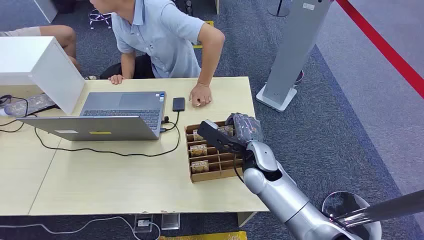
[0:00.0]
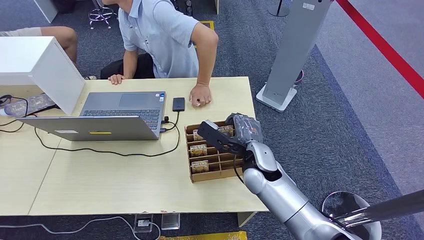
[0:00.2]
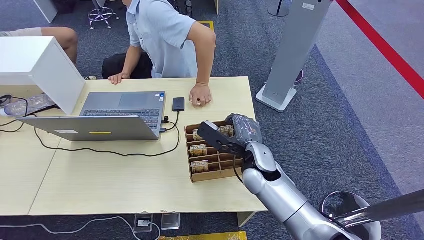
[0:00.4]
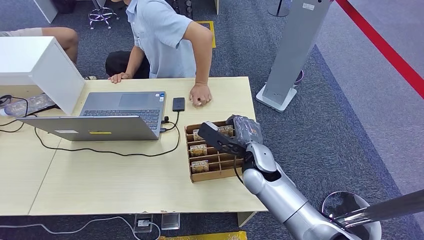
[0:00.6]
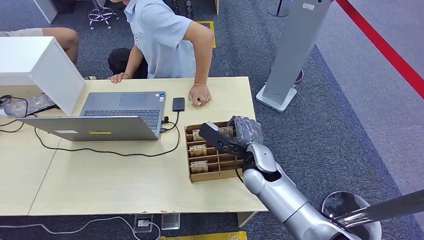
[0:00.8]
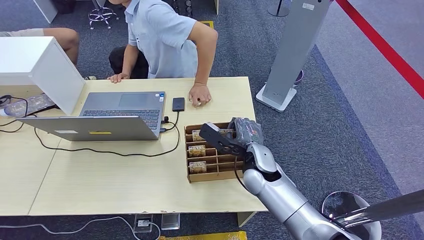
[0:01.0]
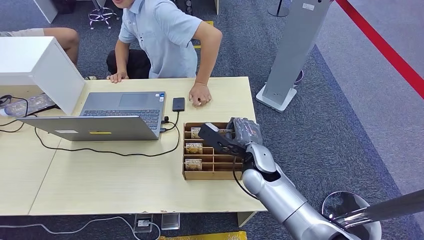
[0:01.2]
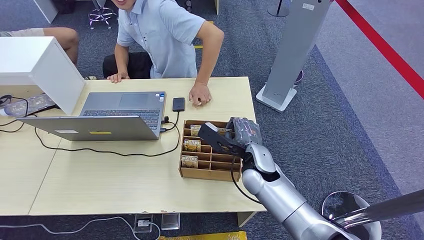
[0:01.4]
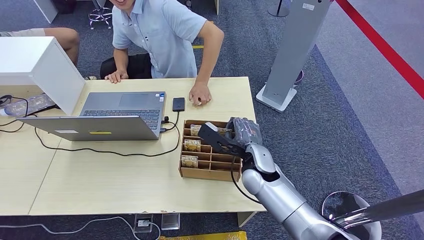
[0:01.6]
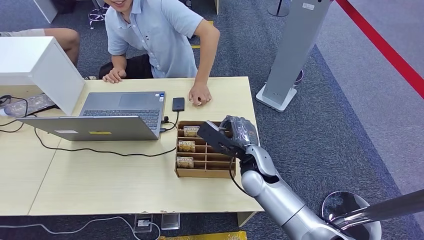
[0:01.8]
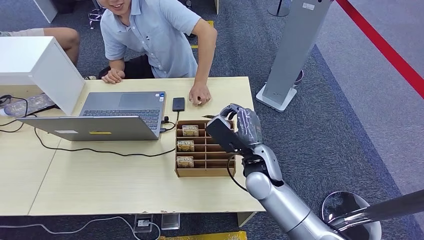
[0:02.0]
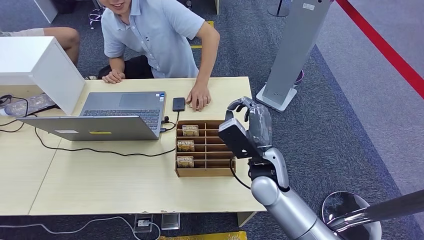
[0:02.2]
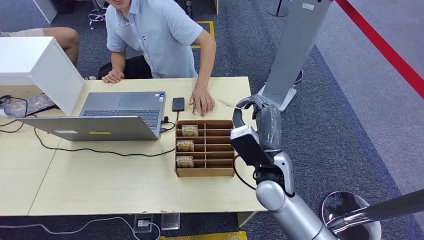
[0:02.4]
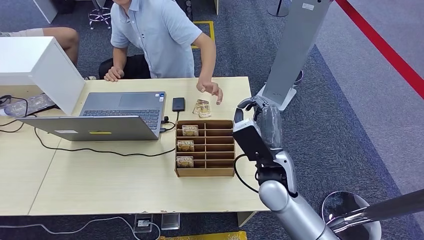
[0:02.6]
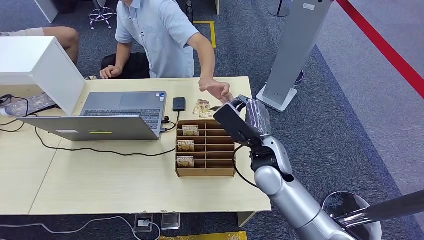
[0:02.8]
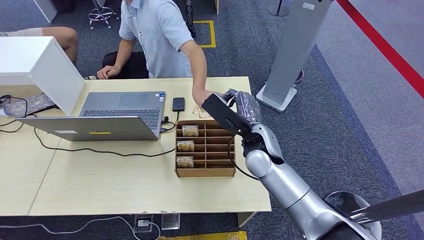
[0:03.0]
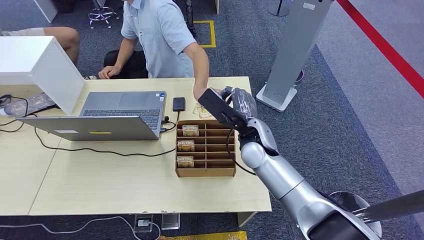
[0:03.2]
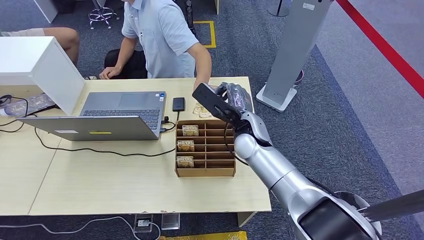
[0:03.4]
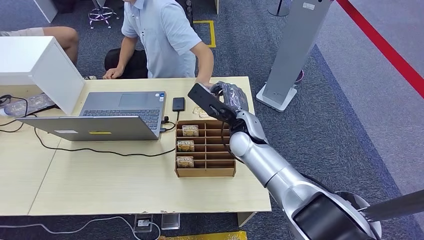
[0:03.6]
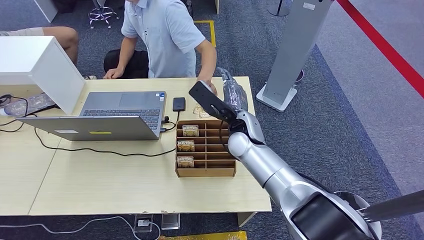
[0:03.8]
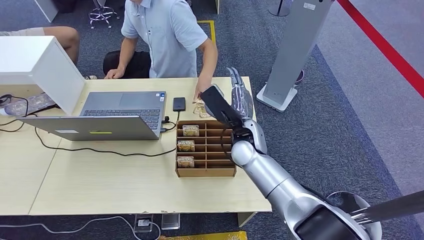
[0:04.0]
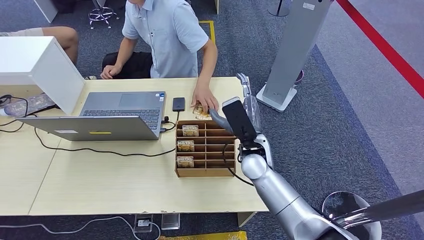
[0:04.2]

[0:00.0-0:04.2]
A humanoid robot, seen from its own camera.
Step, 0:00.0 to 0:02.2: Pick up the key card from the card box.
Step, 0:03.2 to 0:04.2: Hand the key card to the target.
0:01.4 to 0:02.8: The right hand travels upward by approximately 5 cm.
